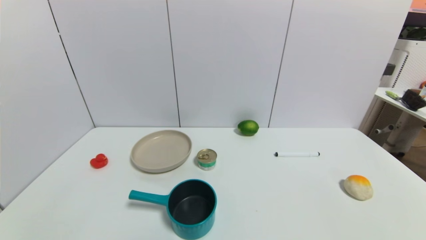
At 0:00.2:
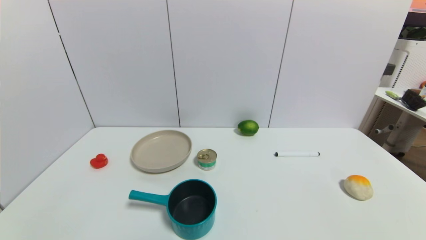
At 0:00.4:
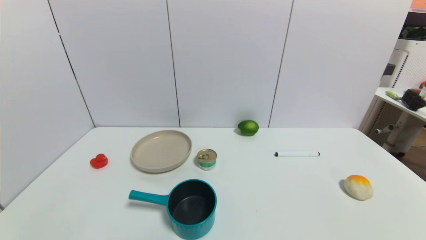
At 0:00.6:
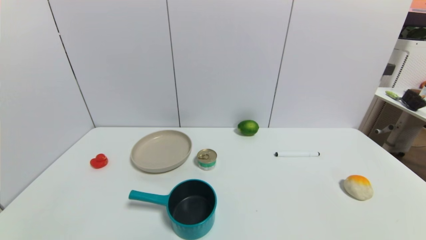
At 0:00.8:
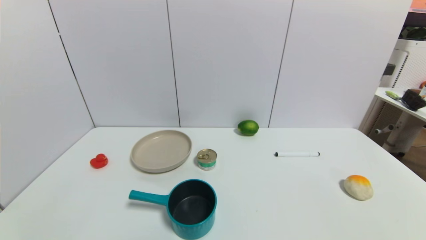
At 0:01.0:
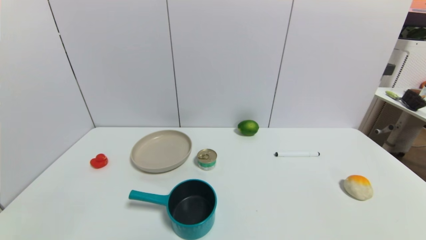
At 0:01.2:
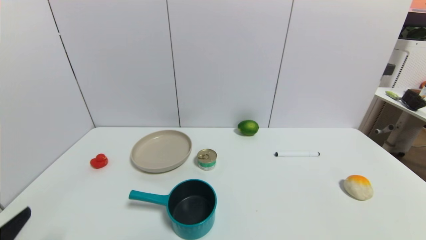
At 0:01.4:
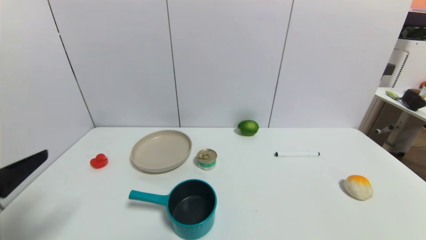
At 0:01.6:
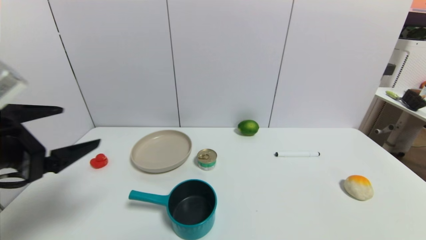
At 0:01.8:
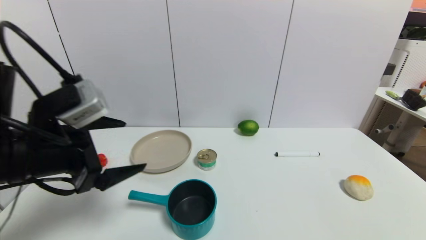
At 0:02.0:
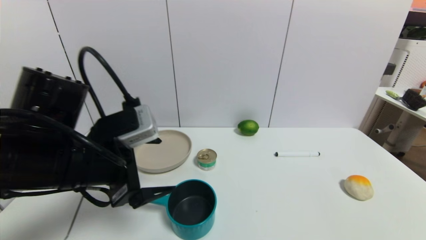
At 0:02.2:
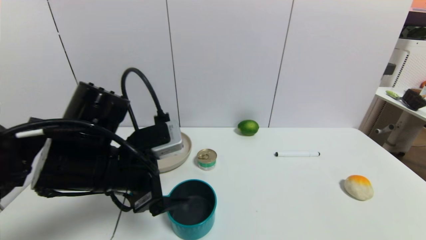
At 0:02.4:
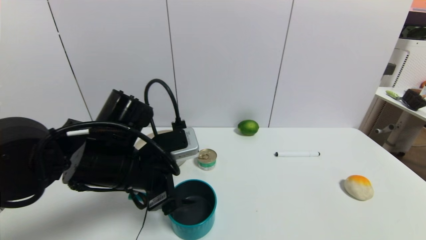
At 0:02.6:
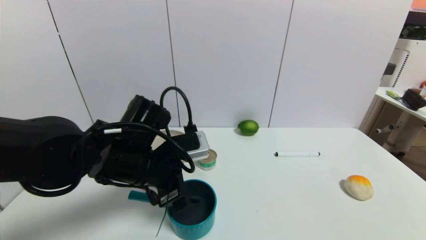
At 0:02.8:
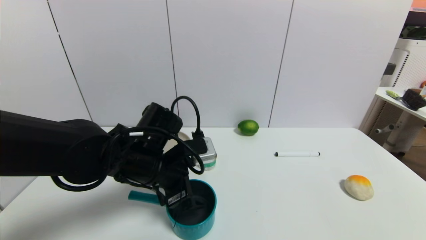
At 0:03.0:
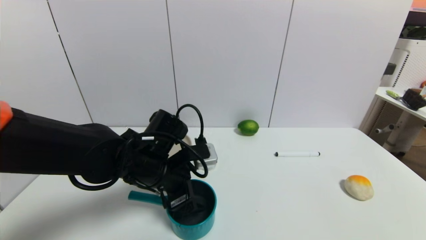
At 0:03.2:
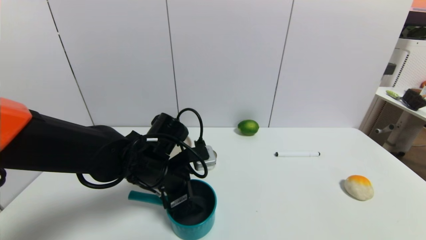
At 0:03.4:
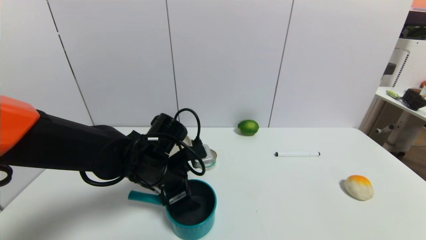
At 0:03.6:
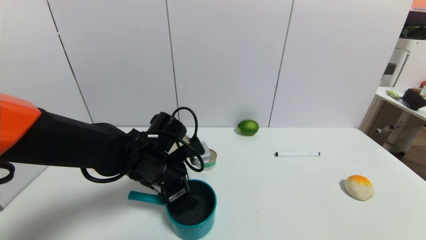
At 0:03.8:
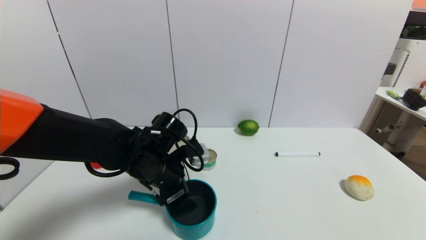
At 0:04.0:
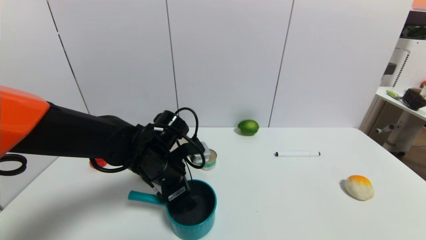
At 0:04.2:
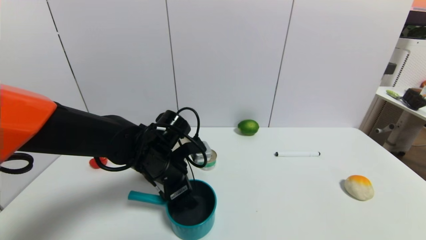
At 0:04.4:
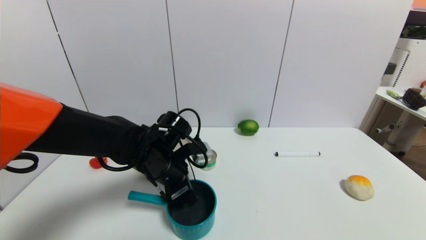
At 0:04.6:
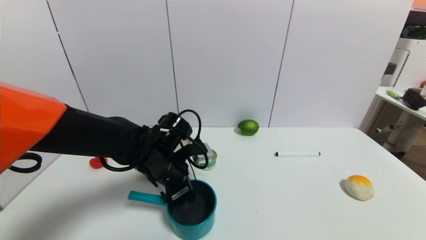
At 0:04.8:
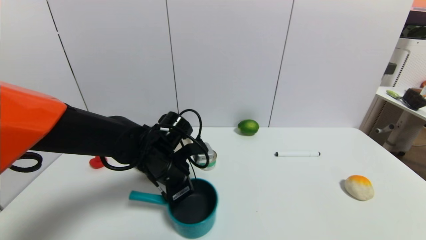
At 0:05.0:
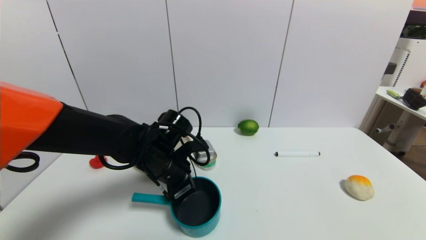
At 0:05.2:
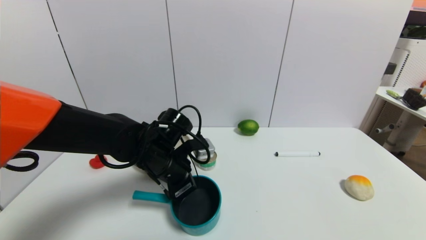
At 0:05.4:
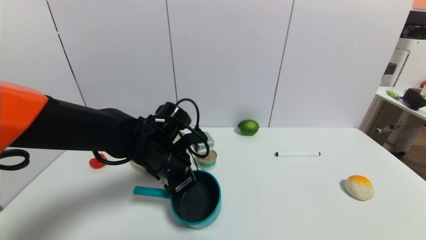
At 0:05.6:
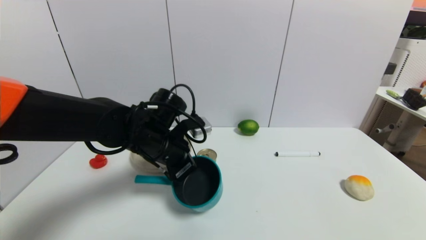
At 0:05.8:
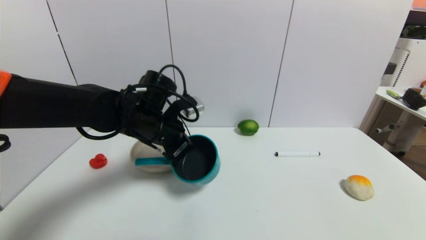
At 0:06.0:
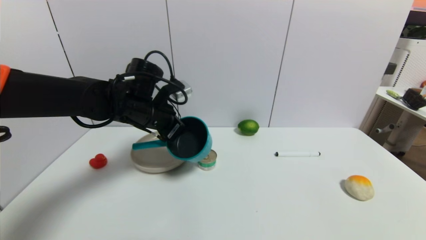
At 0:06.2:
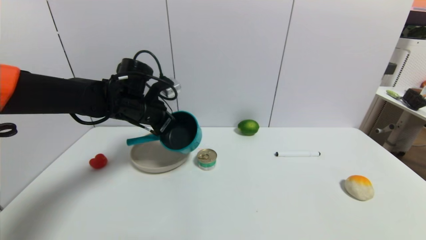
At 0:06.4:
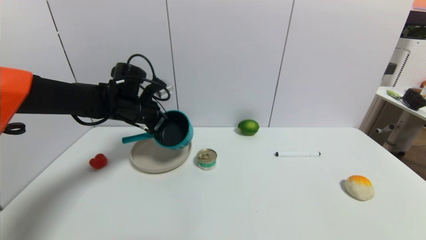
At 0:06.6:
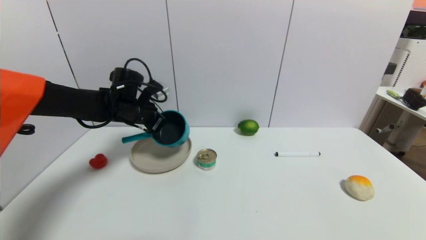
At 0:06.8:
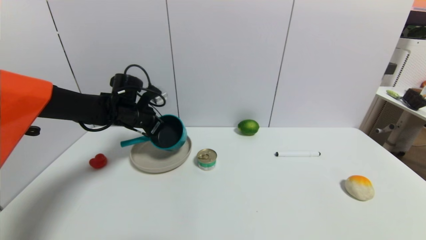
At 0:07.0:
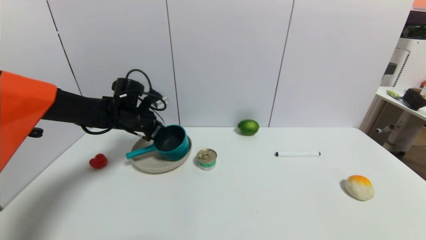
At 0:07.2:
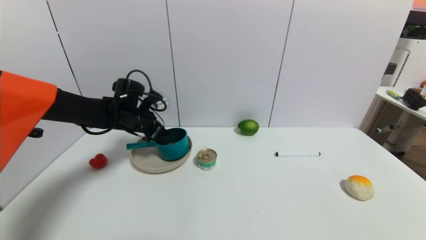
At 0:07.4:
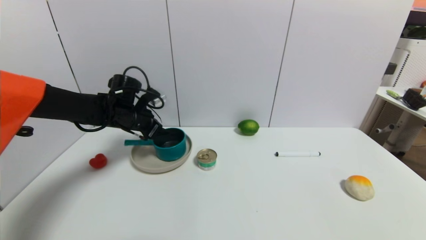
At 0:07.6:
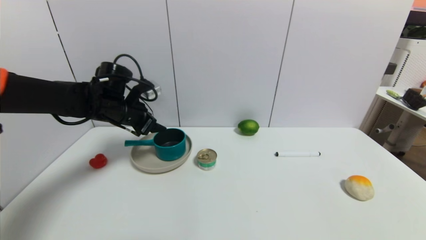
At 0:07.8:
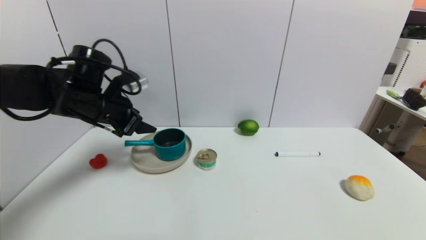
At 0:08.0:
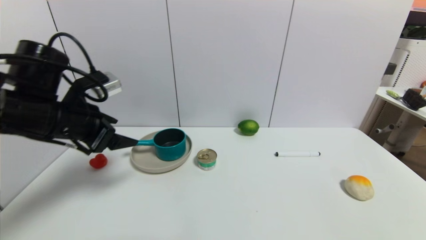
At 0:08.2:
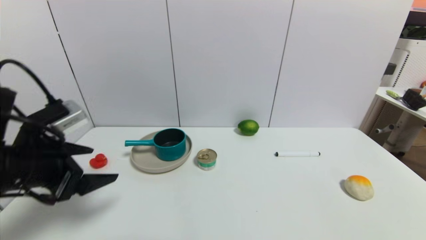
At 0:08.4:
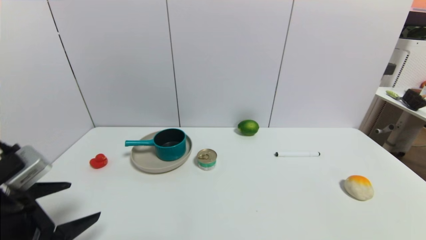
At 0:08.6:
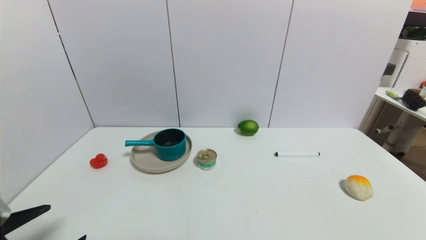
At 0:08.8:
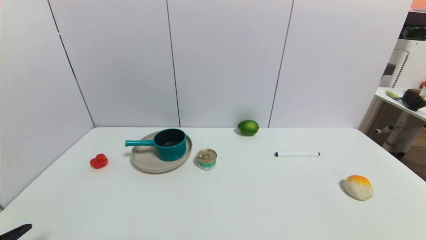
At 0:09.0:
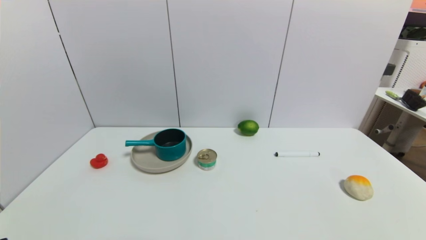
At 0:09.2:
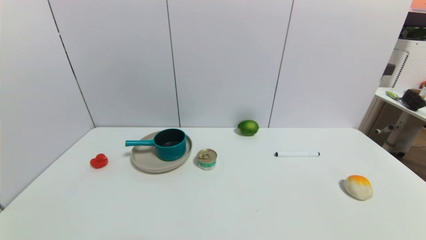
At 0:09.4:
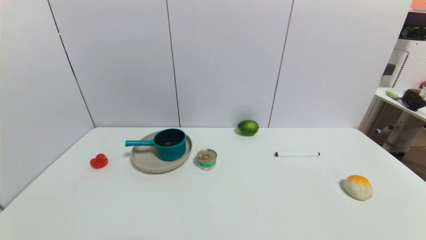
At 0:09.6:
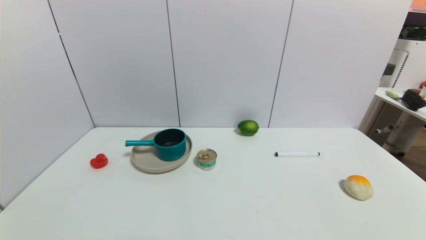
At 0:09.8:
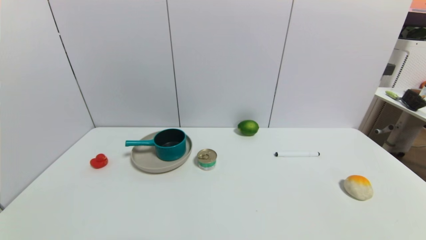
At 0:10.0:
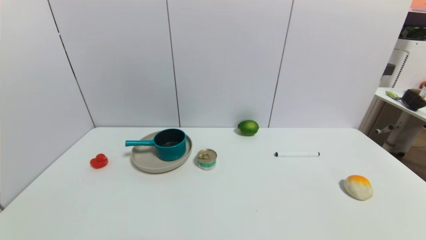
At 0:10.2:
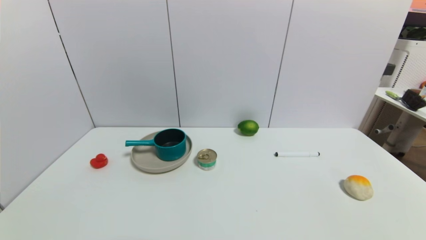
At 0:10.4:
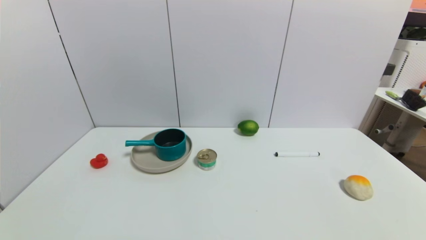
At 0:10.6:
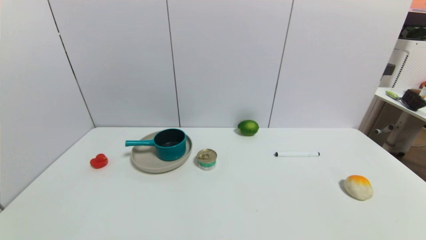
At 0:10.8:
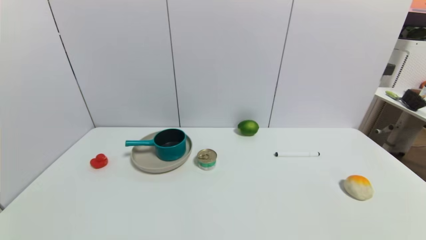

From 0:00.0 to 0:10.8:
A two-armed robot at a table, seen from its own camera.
Task of the whole recording: use a gripper to pick the target object and place on the brown plate.
Step, from 0:00.0 to 0:05.2: Grasp the blue pot with the left gripper.
Step, from 0:05.4 to 0:07.4: Place the blue pot on the brown plate with the left gripper.
From 0:00.0 to 0:01.6: The left gripper is displaced upward and forward by about 25 cm.
From 0:01.6 to 0:03.0: The left gripper moves to the right, downward and forward, roughly 25 cm.
From 0:03.0 to 0:04.6: The left gripper closes its fingers.
From 0:04.6 to 0:06.2: The left gripper moves forward, upward and to the left, roughly 15 cm, and closes up.
From 0:06.2 to 0:07.8: The left gripper shifts about 10 cm to the left and backward, and opens its fingers.
From 0:07.8 to 0:09.2: The left gripper moves backward and downward, roughly 35 cm.
